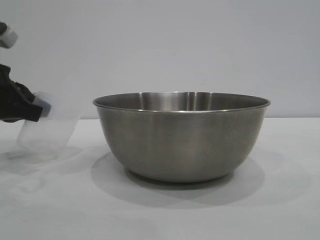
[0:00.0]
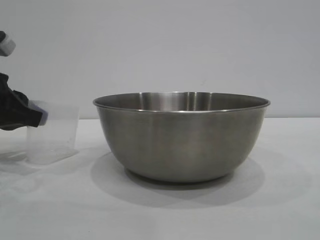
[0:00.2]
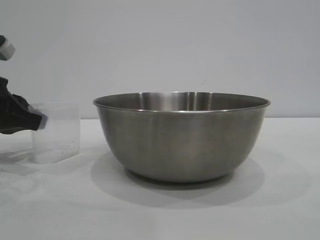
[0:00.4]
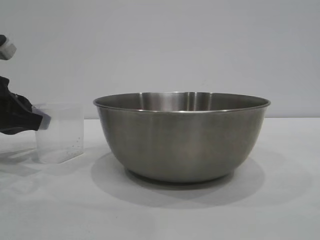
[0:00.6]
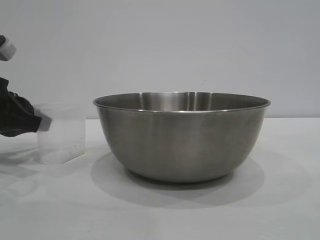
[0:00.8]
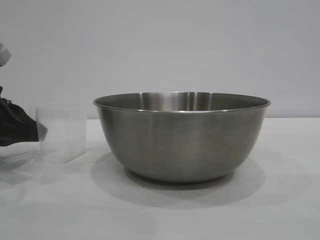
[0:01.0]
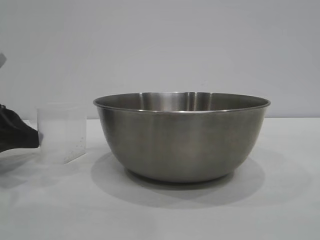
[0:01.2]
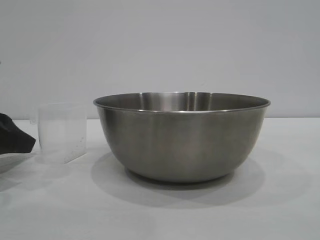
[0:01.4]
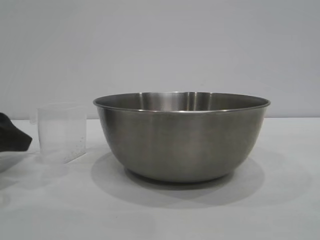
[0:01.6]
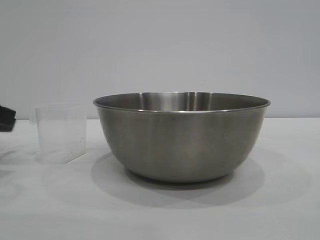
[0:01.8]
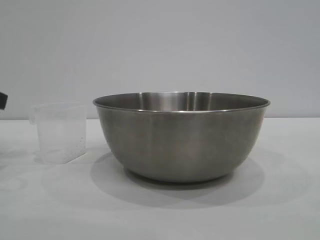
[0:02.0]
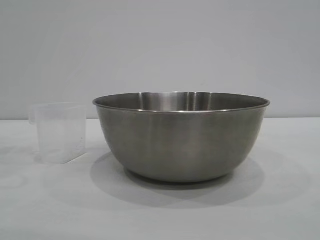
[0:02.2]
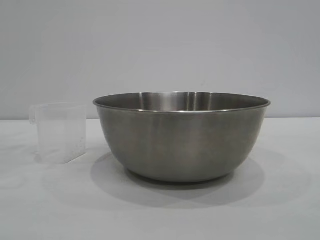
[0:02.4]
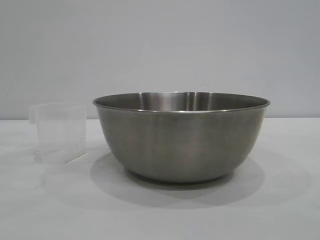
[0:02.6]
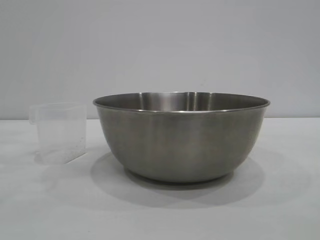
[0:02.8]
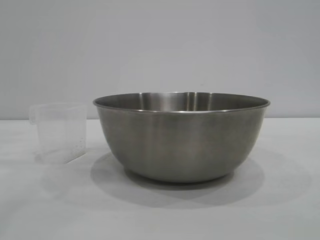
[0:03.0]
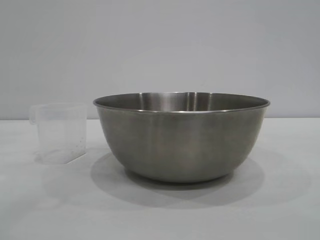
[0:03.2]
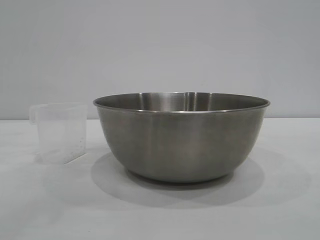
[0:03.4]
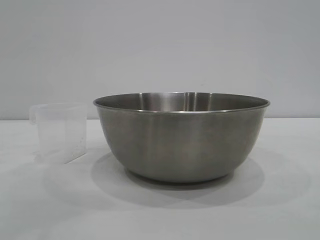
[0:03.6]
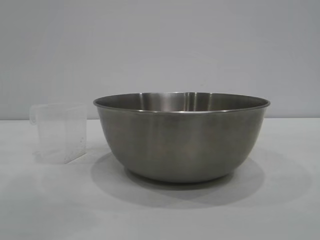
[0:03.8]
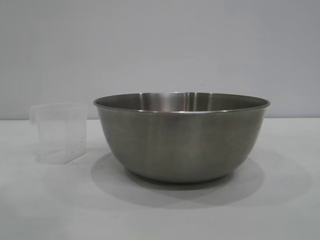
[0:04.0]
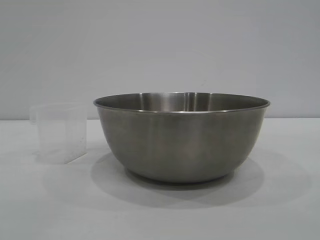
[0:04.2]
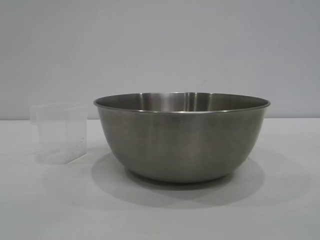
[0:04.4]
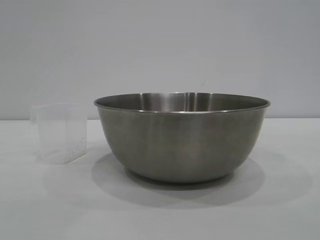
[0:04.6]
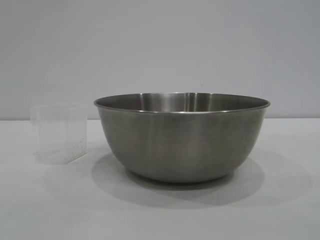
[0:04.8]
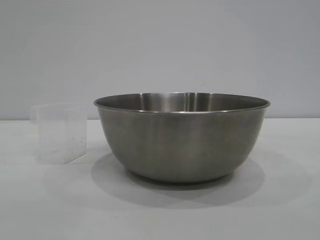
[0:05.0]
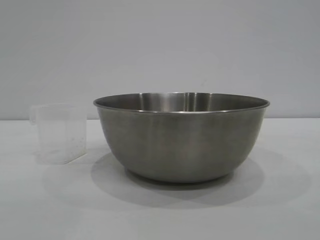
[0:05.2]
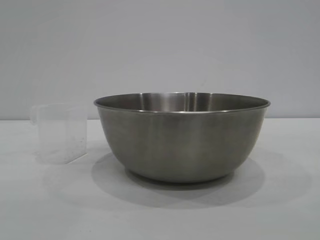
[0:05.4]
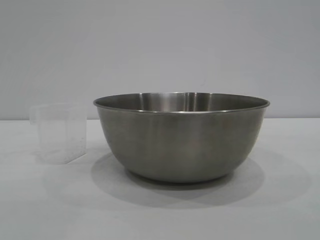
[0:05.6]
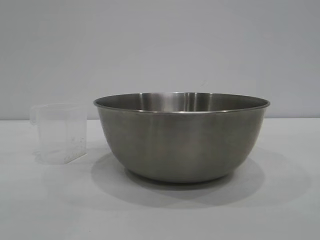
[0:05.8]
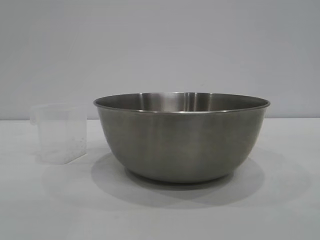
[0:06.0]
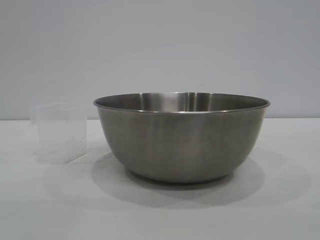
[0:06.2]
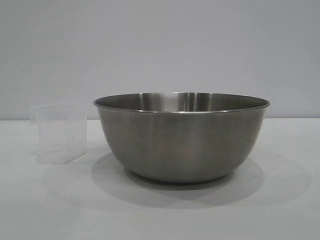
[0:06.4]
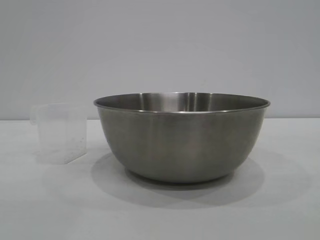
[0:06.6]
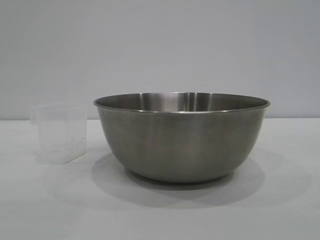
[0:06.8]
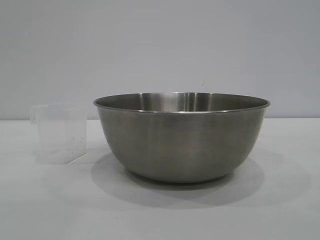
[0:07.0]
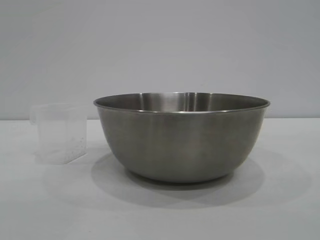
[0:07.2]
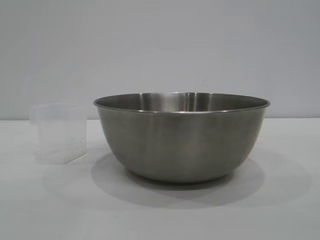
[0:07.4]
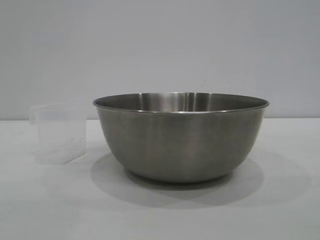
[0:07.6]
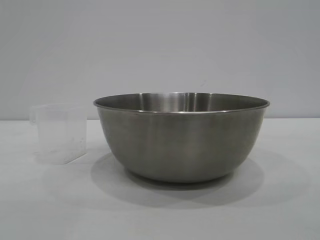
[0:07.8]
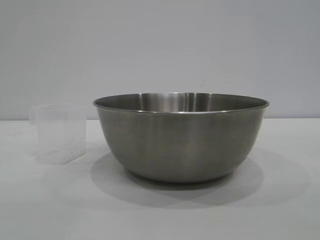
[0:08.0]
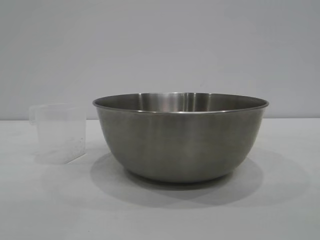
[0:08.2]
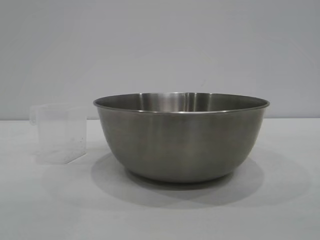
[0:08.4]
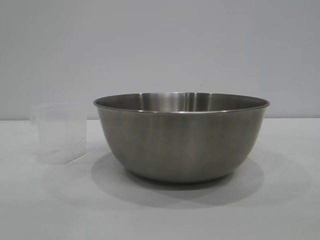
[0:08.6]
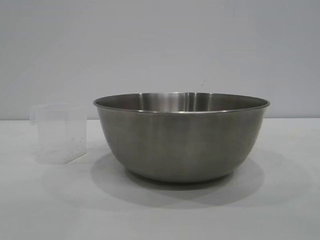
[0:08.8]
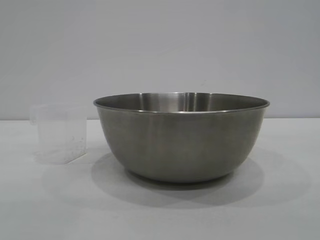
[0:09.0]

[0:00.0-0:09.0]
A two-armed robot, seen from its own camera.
Task of the whole recording: the right gripper grasp the rice container and place it in the center of the table, the left gripper grasp the rice scoop and pour the rice into the rice container.
Step, 0:00.0 to 0:01.4: Place the cup on the table with the left gripper.

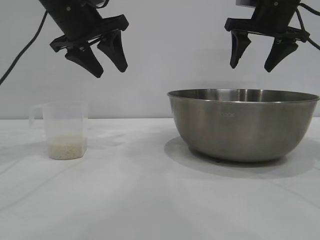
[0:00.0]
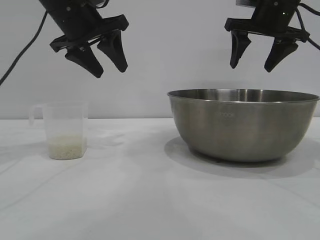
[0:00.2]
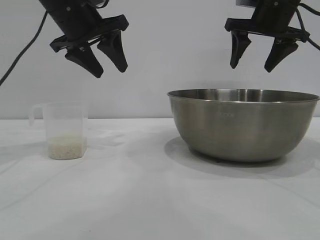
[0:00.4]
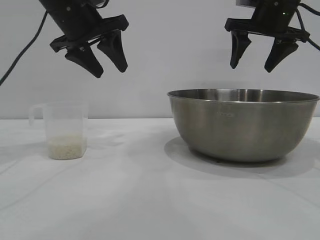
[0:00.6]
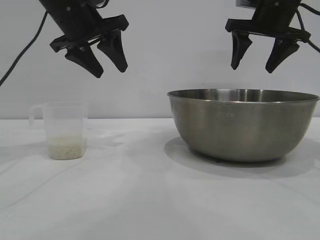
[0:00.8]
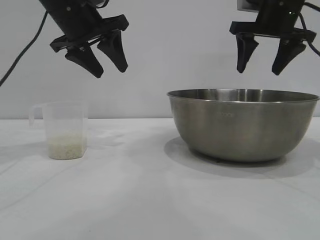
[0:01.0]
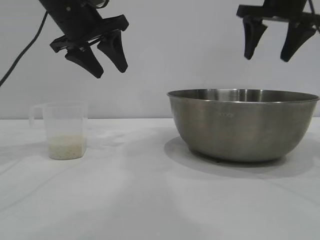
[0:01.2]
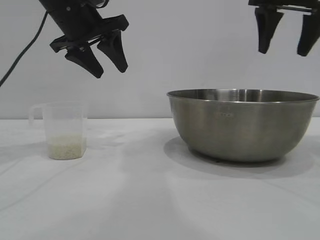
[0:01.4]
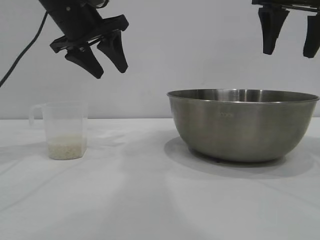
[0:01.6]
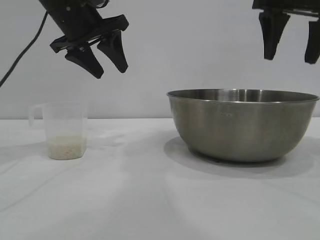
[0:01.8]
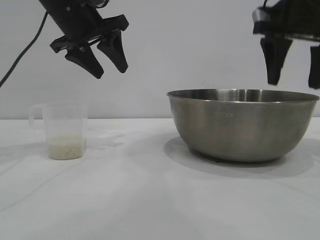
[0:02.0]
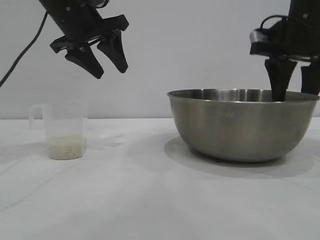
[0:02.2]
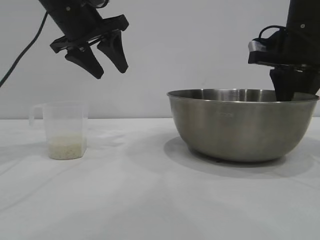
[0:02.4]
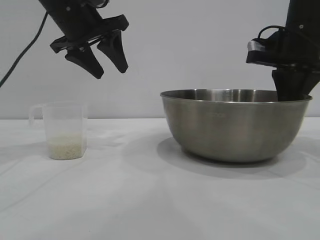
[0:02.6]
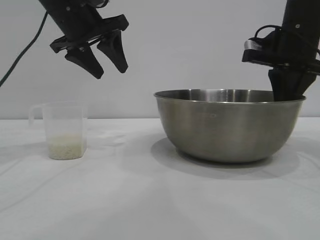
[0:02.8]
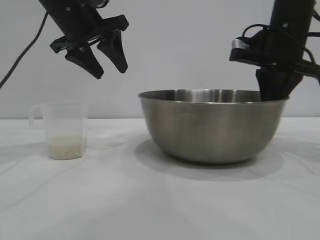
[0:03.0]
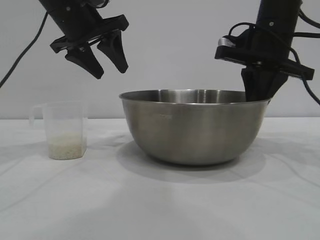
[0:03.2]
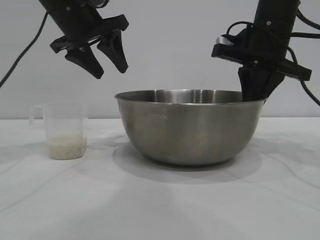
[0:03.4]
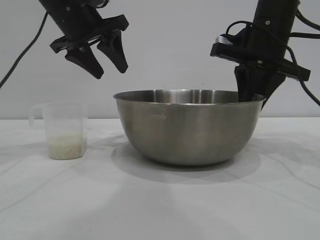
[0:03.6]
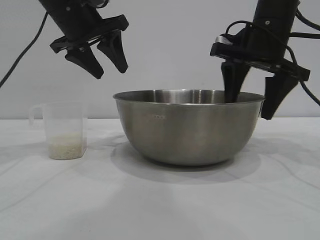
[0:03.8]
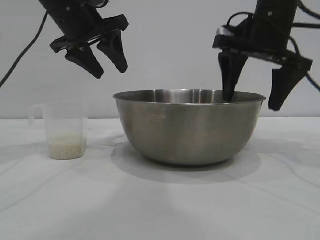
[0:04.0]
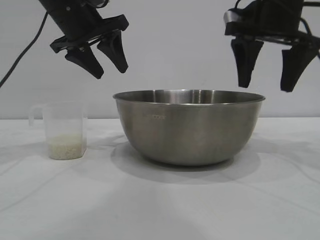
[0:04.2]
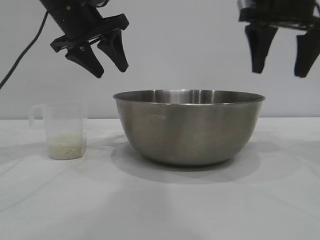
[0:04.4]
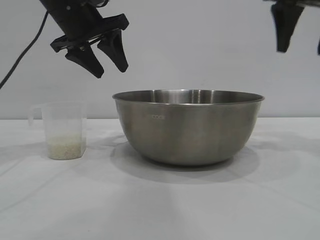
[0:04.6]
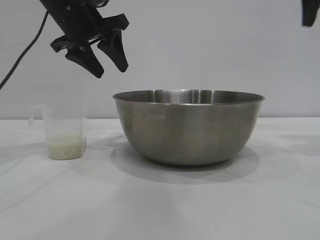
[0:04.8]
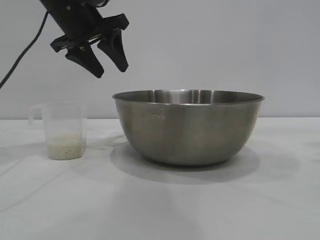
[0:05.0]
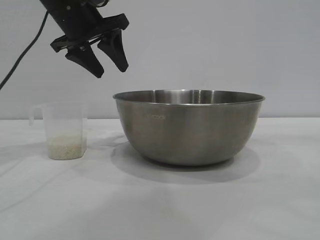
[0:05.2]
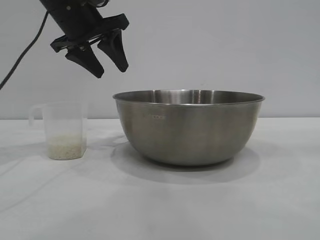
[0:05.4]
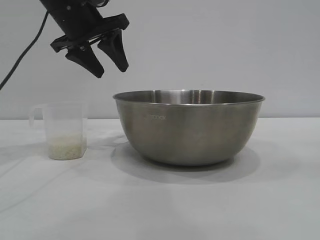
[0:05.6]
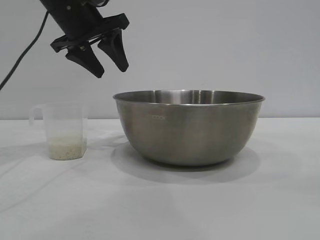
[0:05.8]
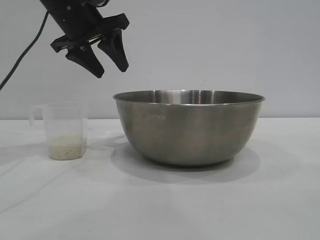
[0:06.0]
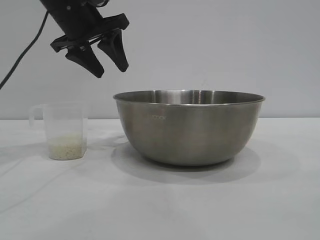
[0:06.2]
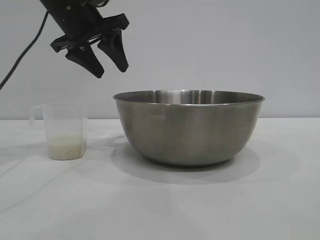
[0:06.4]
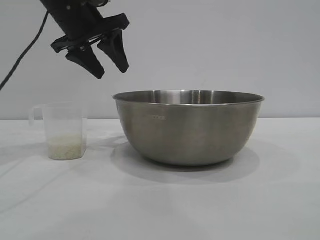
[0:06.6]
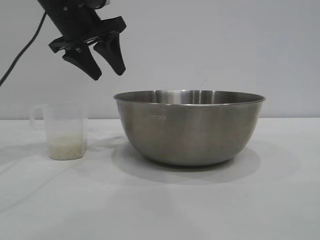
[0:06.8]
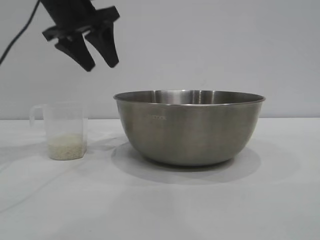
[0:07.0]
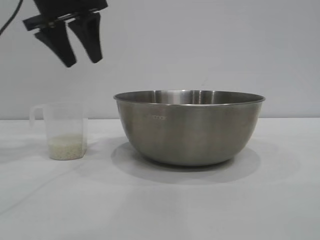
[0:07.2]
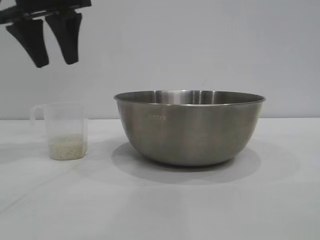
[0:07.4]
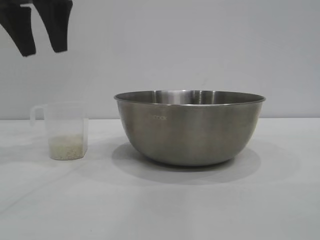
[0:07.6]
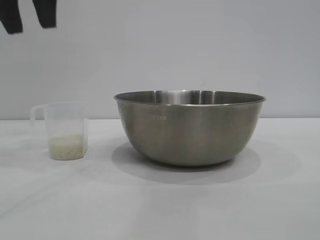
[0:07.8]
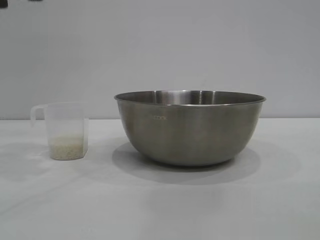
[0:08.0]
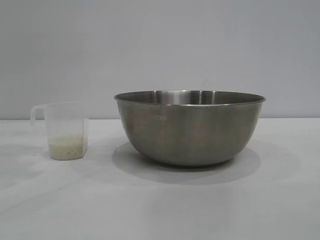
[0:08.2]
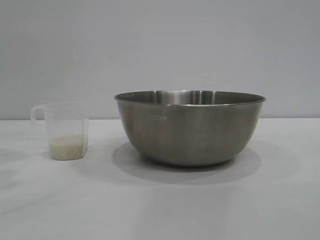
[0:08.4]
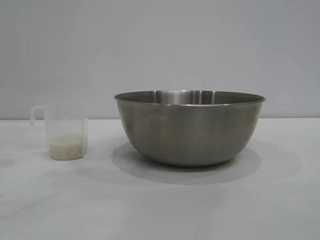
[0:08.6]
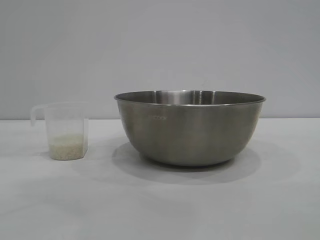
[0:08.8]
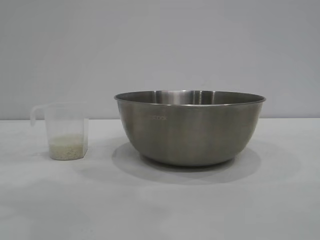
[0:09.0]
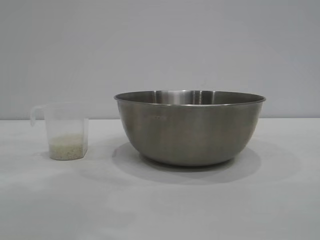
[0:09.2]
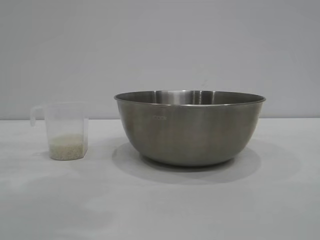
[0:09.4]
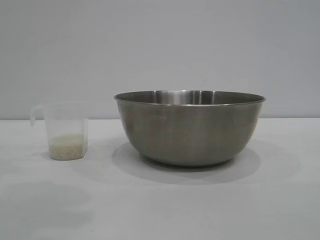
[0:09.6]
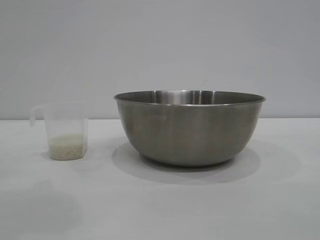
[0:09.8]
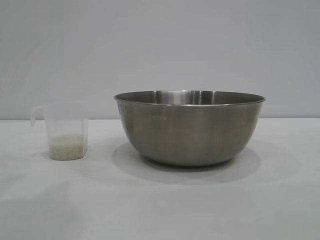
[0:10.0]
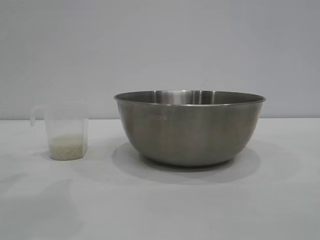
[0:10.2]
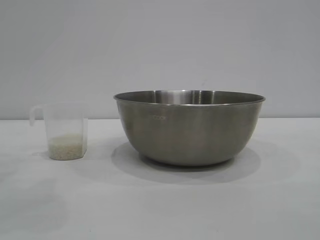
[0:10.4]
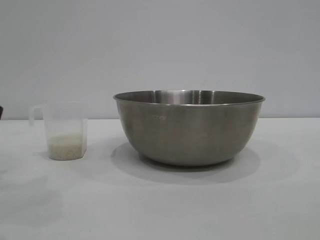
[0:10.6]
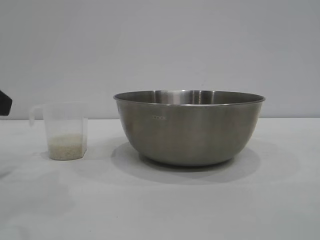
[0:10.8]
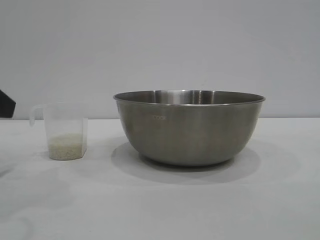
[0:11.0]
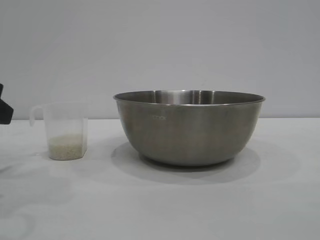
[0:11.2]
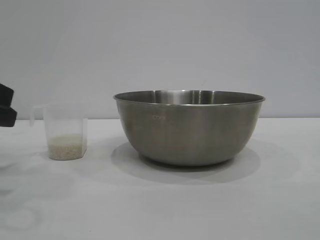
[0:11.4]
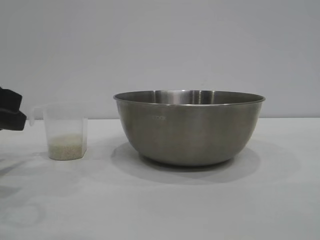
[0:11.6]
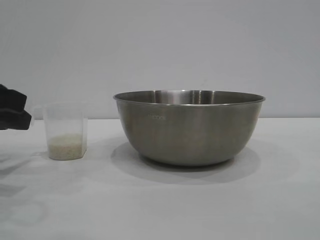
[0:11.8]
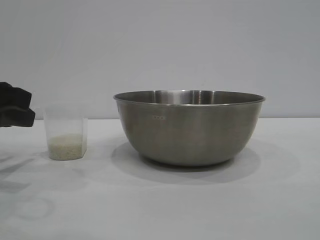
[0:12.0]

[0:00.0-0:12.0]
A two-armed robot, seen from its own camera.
Task of the whole recording: the right gripper grasp the rice container and place it in the center of the table, the left gripper grasp the rice scoop and pour the rice into the rice container.
Step, 0:00.0 to 0:04.2: Move the bowl to the center of view with the right gripper.

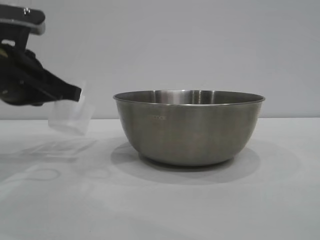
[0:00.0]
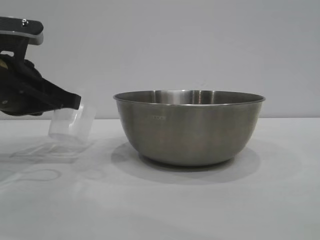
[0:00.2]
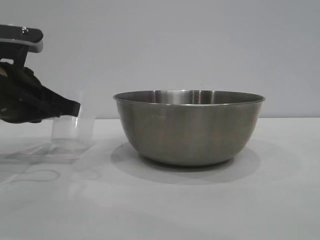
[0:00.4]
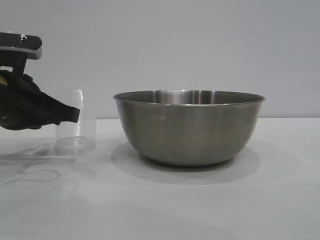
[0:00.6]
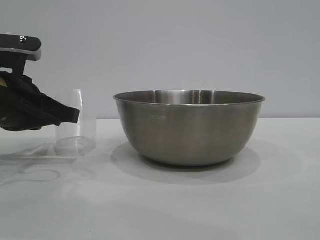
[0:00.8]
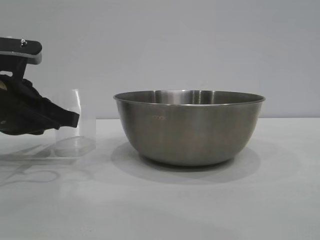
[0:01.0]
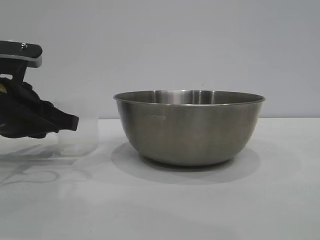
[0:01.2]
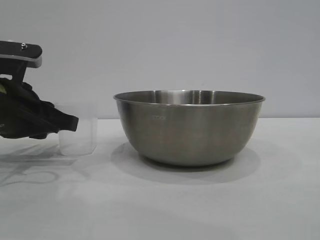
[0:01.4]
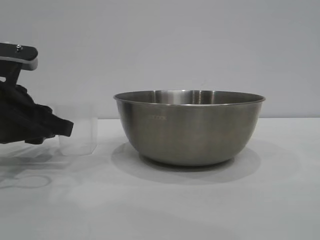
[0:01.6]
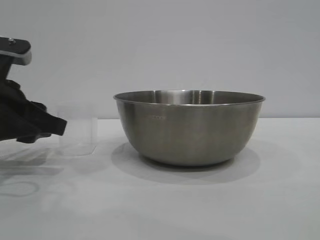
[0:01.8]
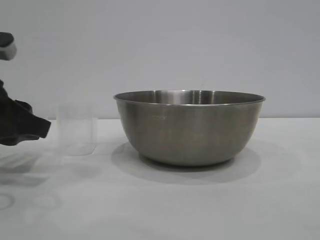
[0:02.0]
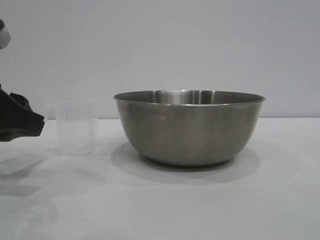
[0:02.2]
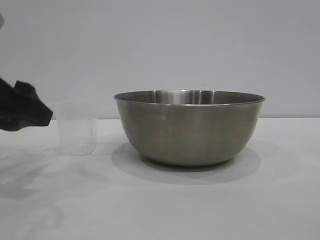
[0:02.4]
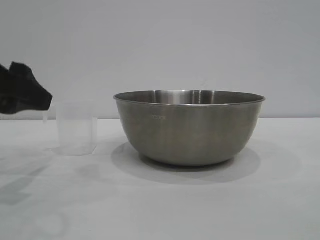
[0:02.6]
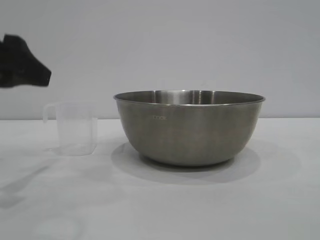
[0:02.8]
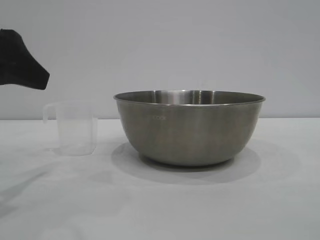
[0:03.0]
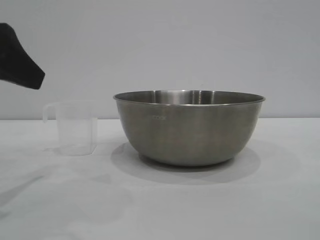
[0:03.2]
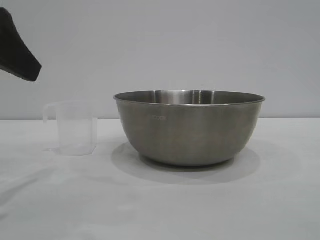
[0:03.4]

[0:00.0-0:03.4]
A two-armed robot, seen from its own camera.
Task of the whole recording: the right gripper grasp the rice container and place it in the center of the table, the left gripper grasp the rice scoop and pour the rice into the rice container.
Step, 0:00.0 to 0:02.0: Place the cup on the table with the left gripper.
